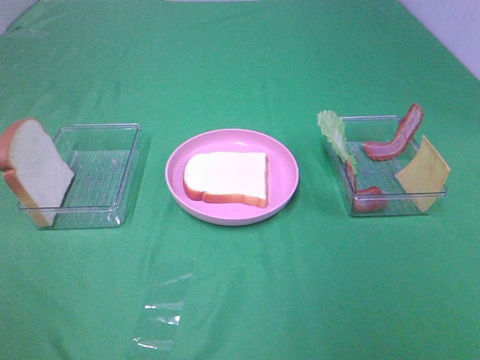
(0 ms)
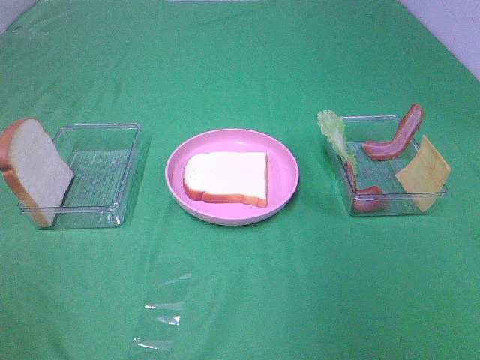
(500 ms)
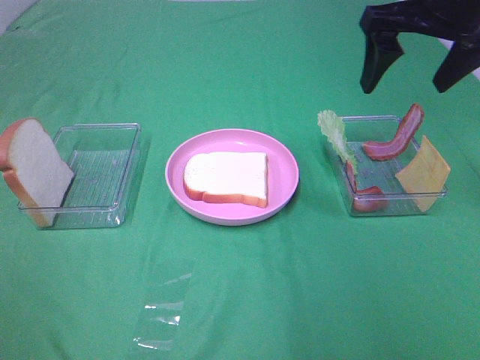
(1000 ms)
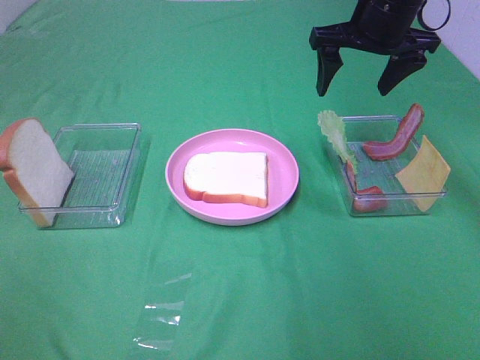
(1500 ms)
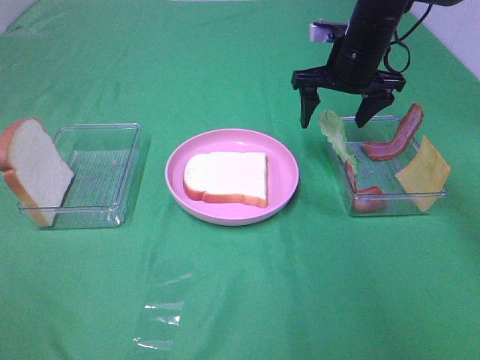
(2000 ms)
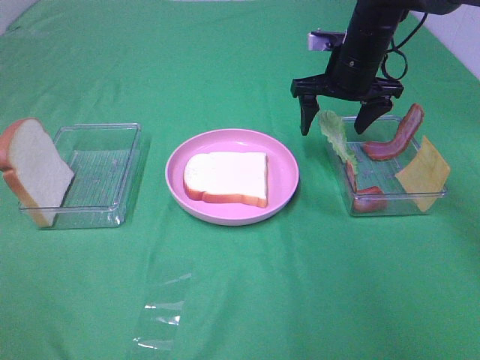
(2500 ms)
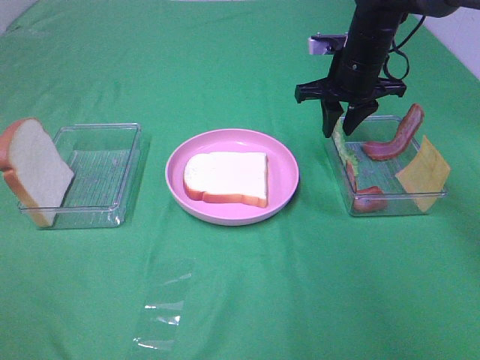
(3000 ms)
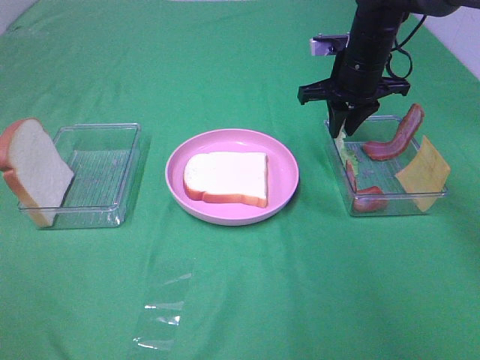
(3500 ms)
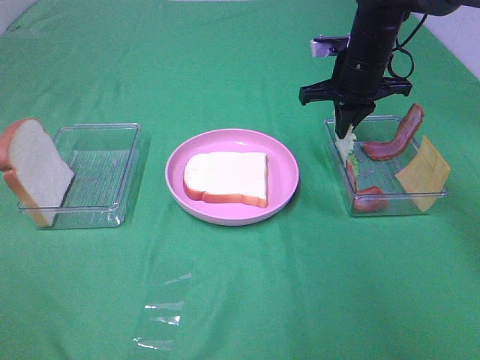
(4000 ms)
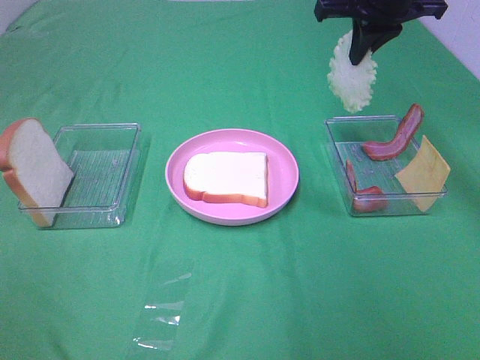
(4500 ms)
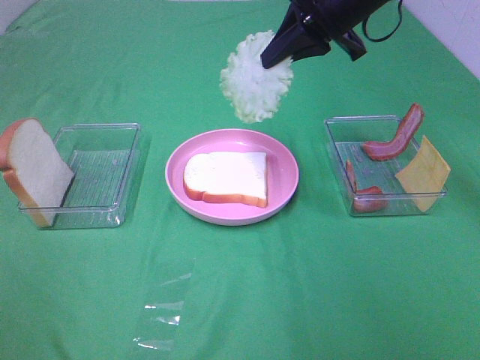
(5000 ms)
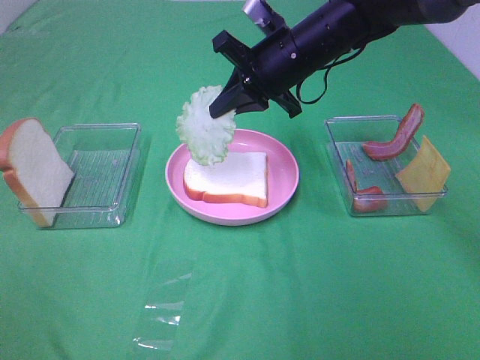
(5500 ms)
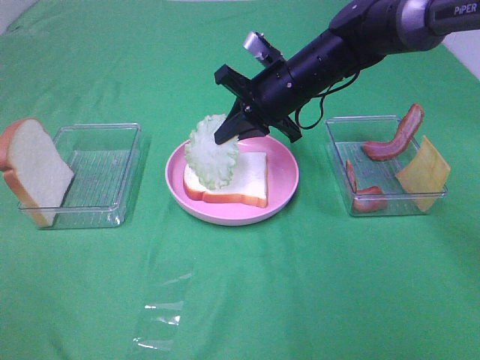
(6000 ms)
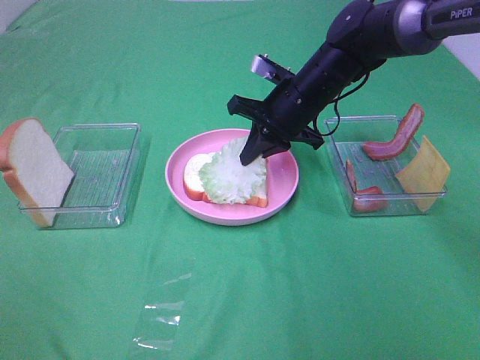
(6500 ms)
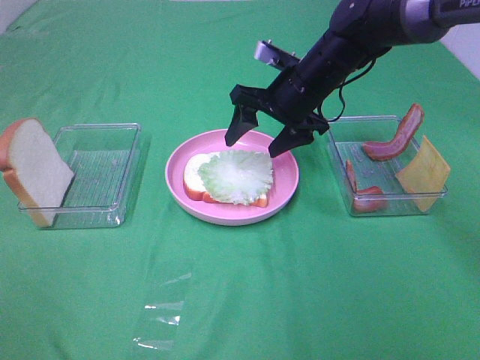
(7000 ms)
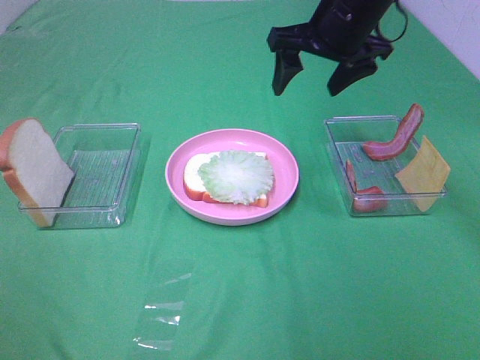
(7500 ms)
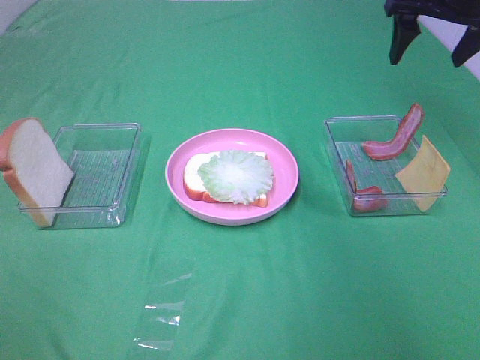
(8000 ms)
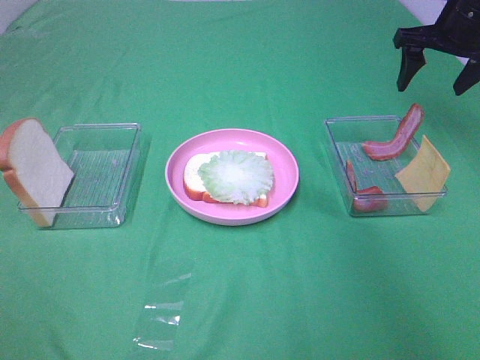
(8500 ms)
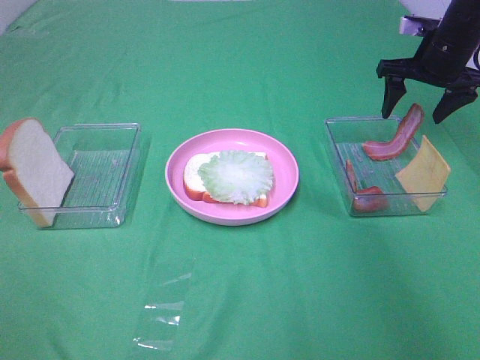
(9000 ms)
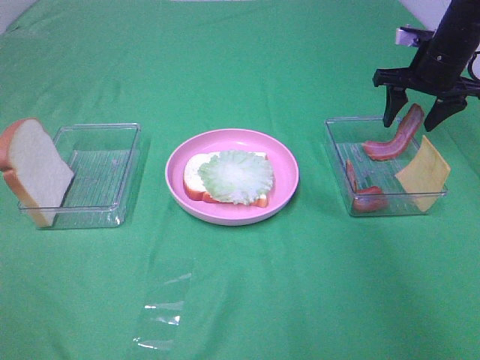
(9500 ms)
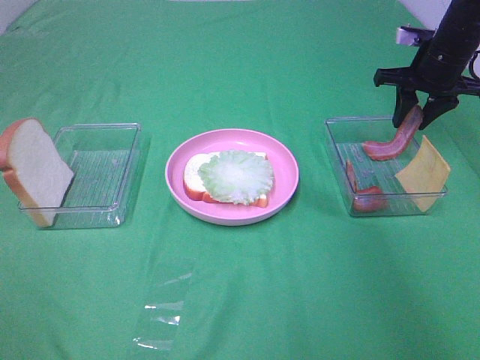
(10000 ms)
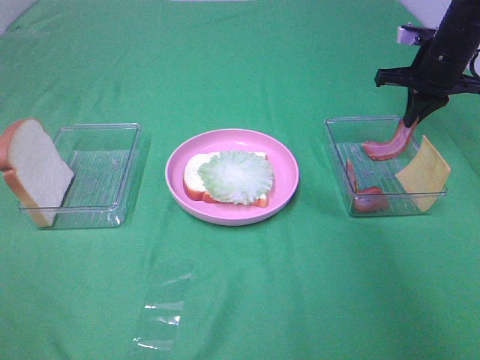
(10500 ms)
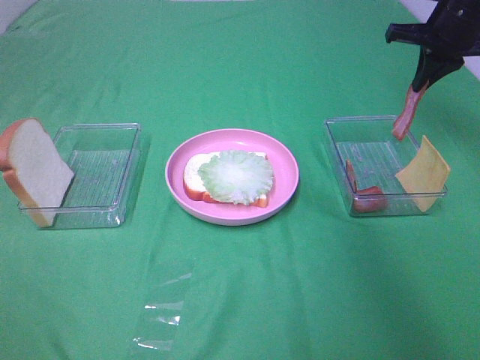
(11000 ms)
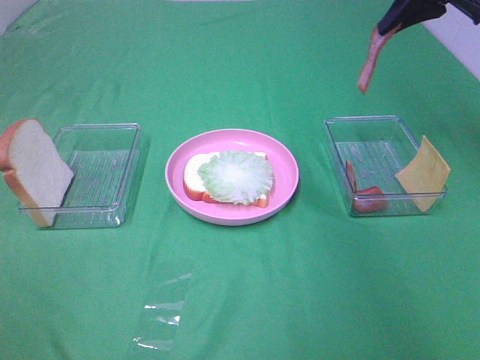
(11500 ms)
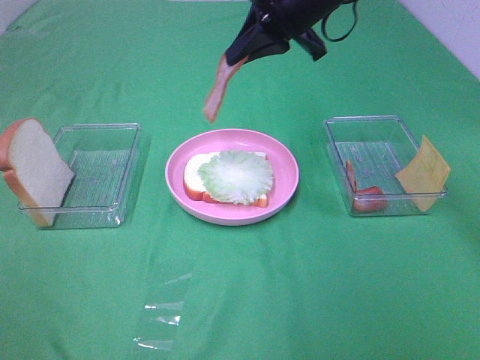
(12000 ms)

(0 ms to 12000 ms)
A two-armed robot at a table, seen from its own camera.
Task of the whole recording: Make sandwiches.
Step, 0 ms - 3500 ms: Right hand:grab the lettuce slice.
Step, 4000 ms - 7000 ms: Right hand:place the lettuce slice on the bread slice.
Step, 7500 ms - 10000 ms: Right hand:grab the bacon.
0 ms - 2000 ms: The right gripper goes some 40 cm forward.
2000 ms - 4000 ms: The right gripper closes.
4000 ms - 6000 ms: The right gripper heads to the left, covering approximately 10 cm, and reaches approximately 15 cm upward, then returns.
6000 ms - 8000 ms: The right gripper is displaced to the right and upward by some 25 cm, and opens its fingers.
8000 ms - 10000 ms: The right gripper heads downward, covering some 10 cm, and closes its fingers.
10000 ms - 12000 ms: The right gripper moves to the left and upward, roughly 25 cm, and closes its fingers.

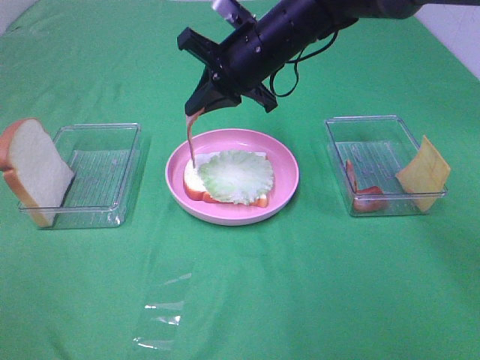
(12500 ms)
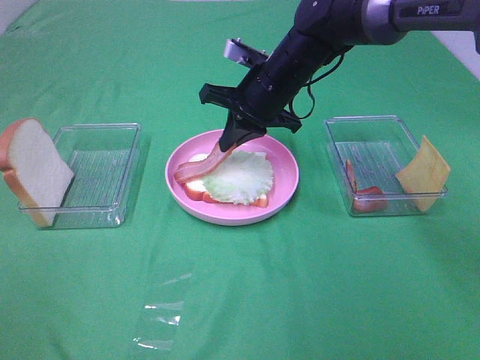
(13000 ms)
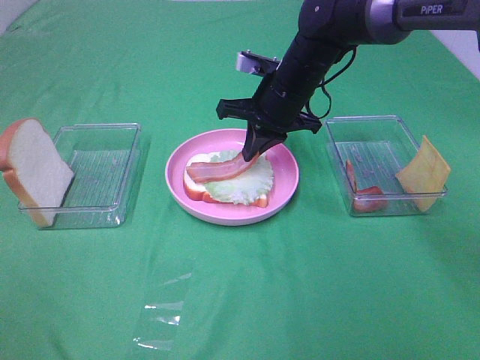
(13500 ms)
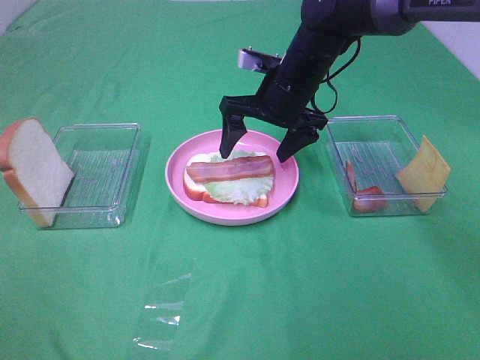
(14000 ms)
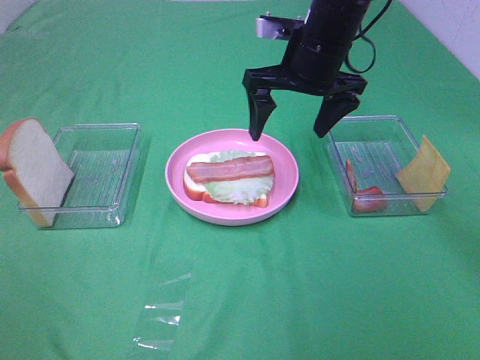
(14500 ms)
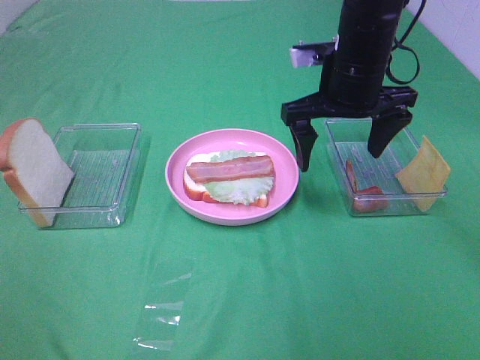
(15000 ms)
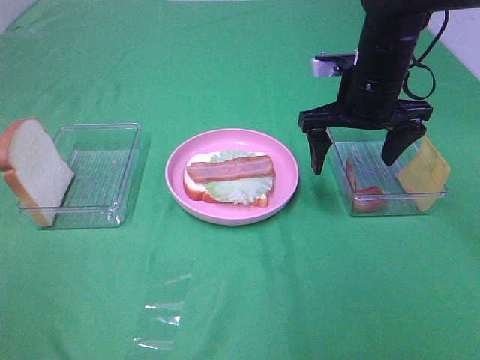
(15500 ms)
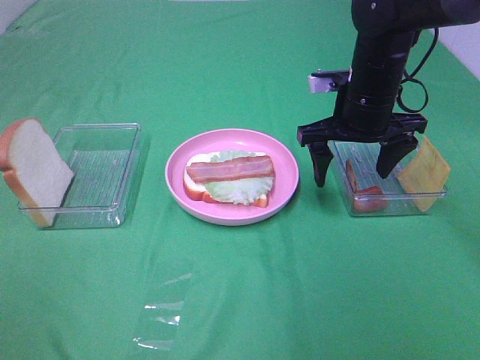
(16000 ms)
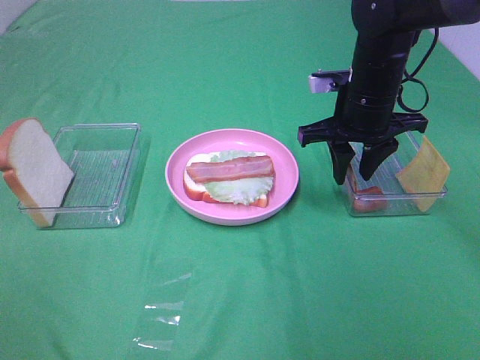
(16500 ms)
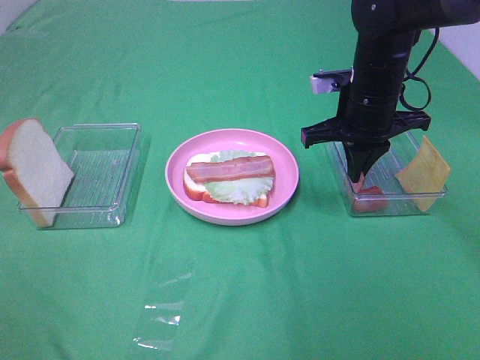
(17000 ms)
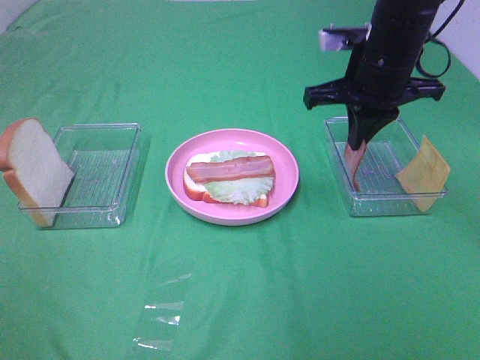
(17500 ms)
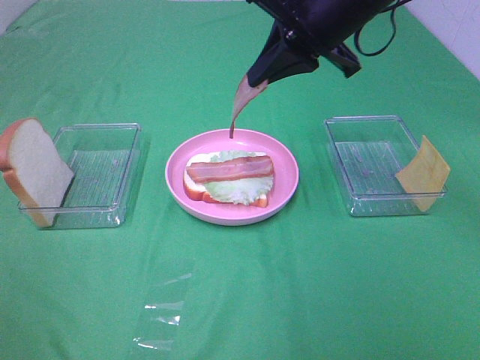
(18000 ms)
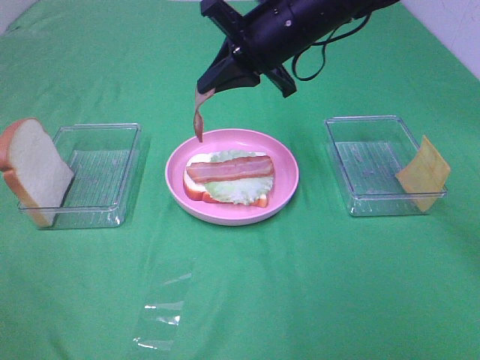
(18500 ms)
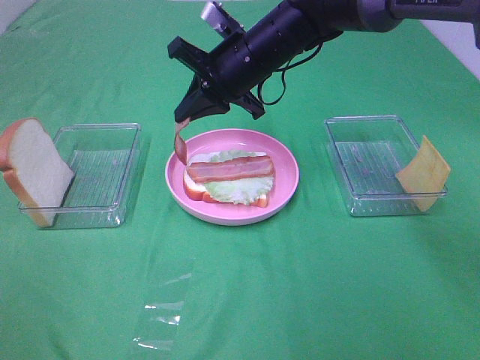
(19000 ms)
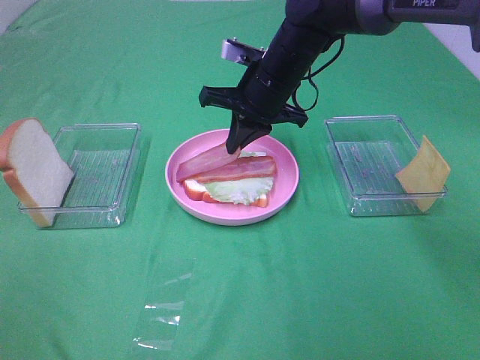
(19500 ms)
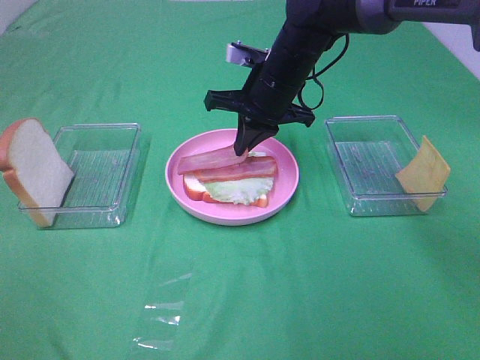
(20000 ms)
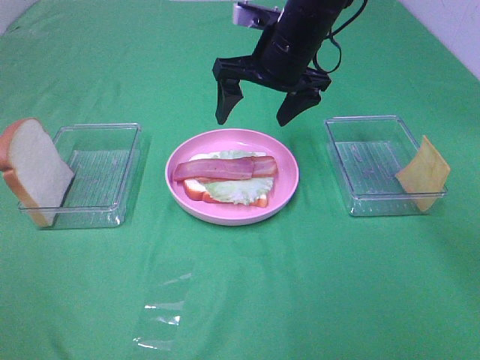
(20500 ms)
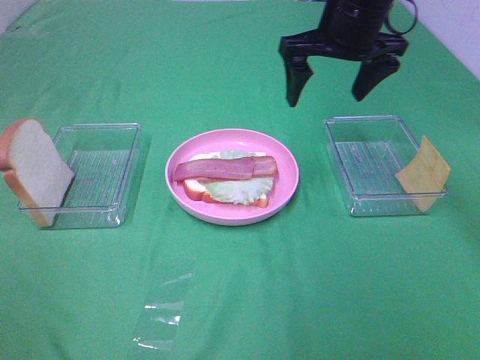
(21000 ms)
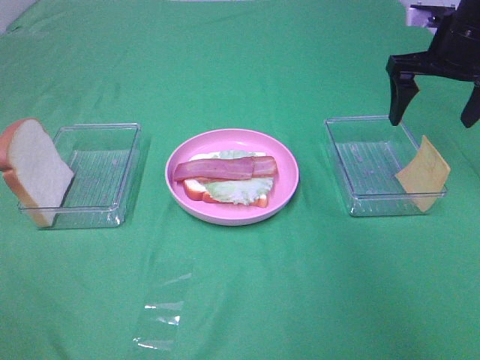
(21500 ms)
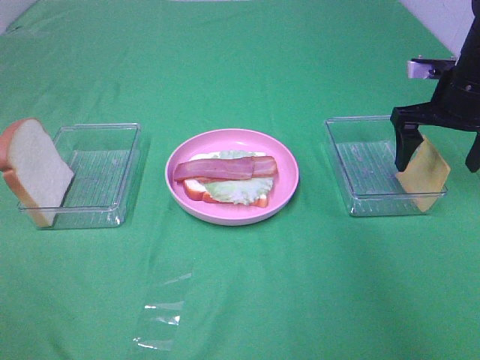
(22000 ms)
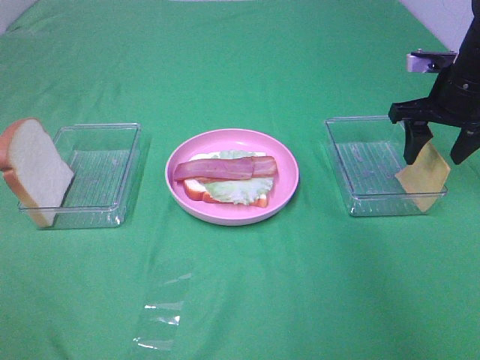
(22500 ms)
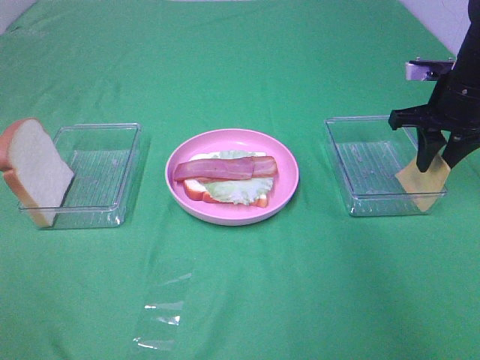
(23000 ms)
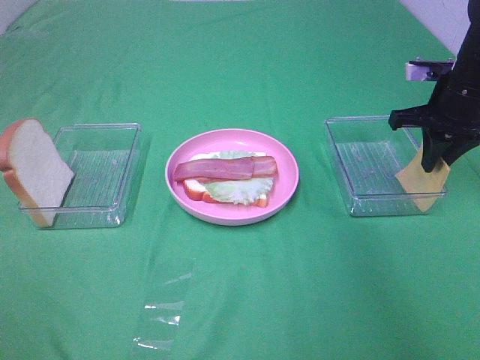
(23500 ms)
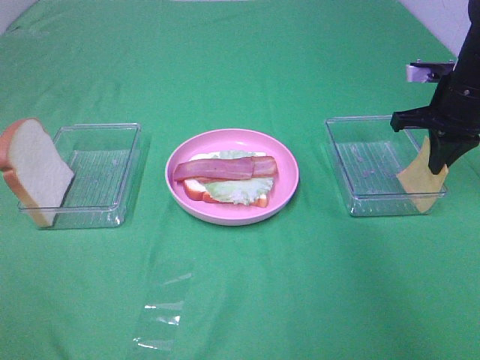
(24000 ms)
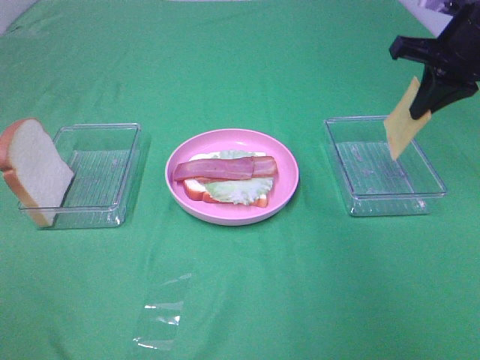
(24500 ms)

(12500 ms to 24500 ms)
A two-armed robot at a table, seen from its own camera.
Task of the whole recording: Make sandwiches.
Step, 14500 ms - 17000 ms: Right hand:grab the bacon.
Step, 17500 ms - 20000 ms: Right hand:place bacon on bacon.
Step, 20500 ms - 24000 ms: Right hand:grab the cheese slice.
12500 ms - 14500 ms: The right gripper travels to the right by about 5 cm, and opens up.
14500 ms - 16500 ms: The right gripper moves downward and to the right, some 10 cm, and closes its fingers.
16500 ms - 18500 ms: The right gripper travels to the left and upward by about 10 cm, and closes.
18500 ms - 20500 ms: The right gripper opens its fingers.
20500 ms - 22500 ms: The right gripper travels to the right by approximately 20 cm.
22500 ms - 24500 ms: The right gripper heads upward, covering some 10 cm, and closes up.

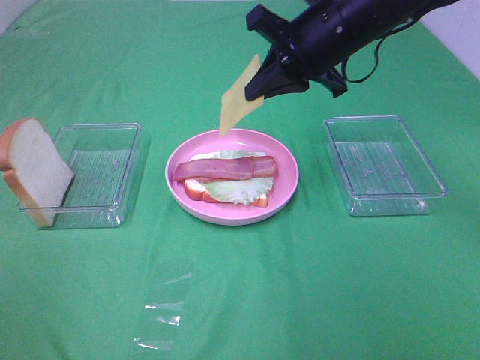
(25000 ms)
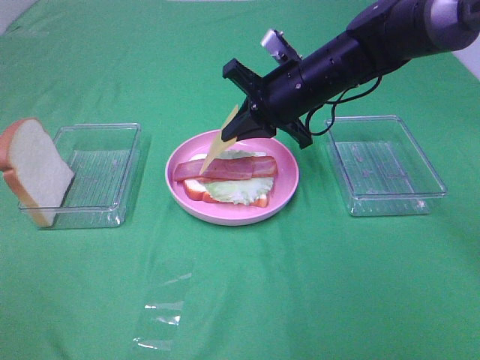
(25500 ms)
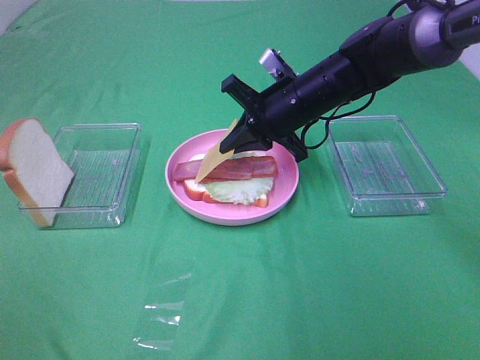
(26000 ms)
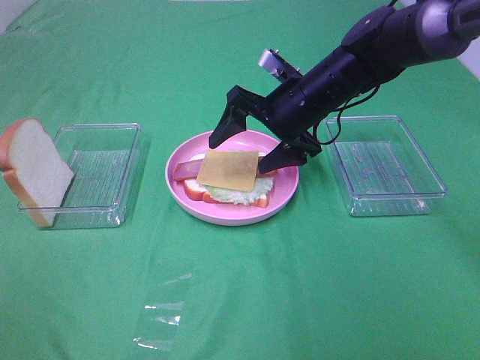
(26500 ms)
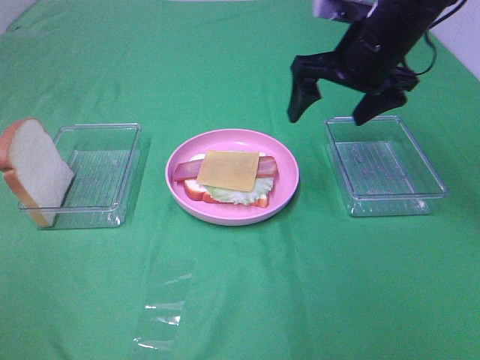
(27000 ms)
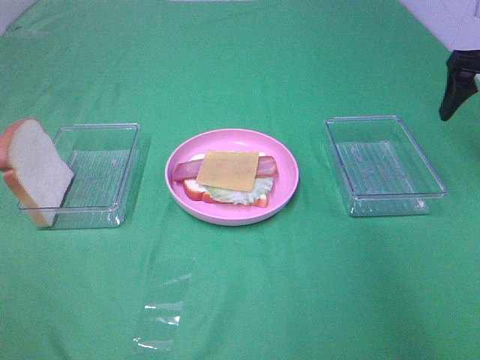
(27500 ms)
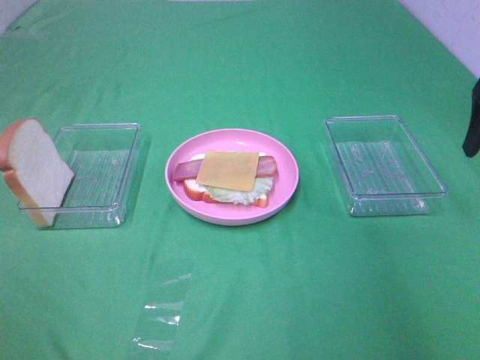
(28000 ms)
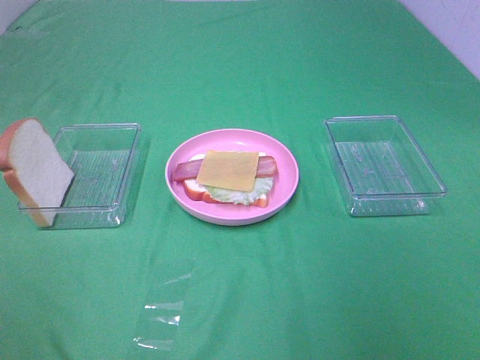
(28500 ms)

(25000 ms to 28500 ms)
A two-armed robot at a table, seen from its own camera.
Task of the whole recording: Make sandwiches.
Step, 25000 ms - 26500 ms: Right hand:place the cheese slice on top of the bacon.
25000 ms - 27000 ms: The right gripper travels to the right by approximately 5 cm, reaches about 10 cm downward, then returns, and opens.
27000 ms - 28500 ms: The right gripper heads backward and to the right, covering about 25 cm.
